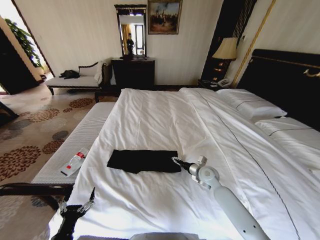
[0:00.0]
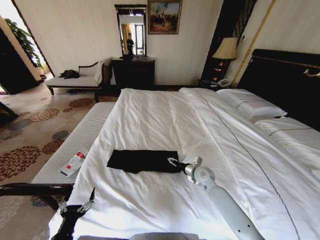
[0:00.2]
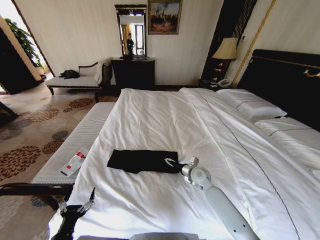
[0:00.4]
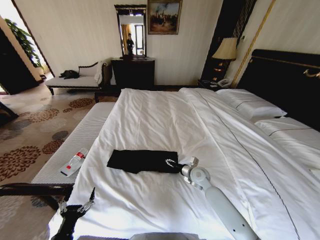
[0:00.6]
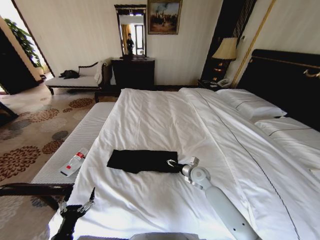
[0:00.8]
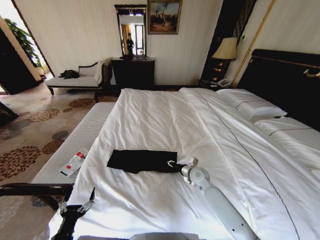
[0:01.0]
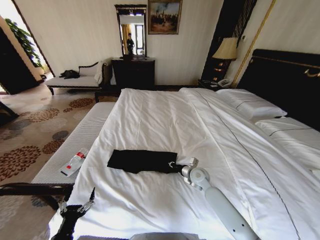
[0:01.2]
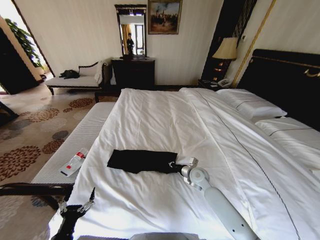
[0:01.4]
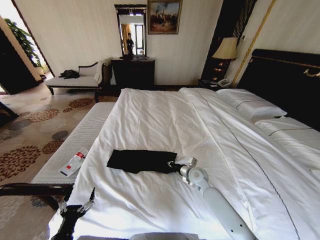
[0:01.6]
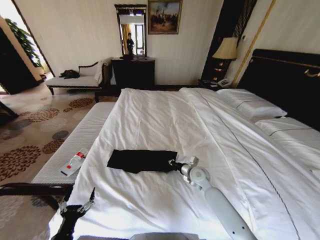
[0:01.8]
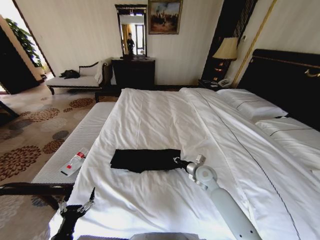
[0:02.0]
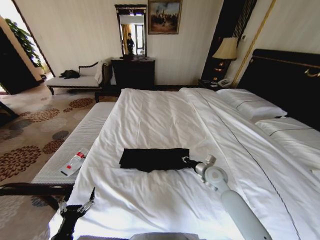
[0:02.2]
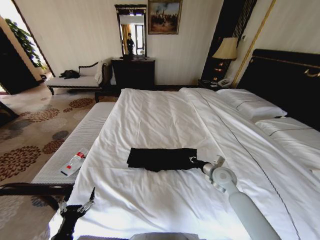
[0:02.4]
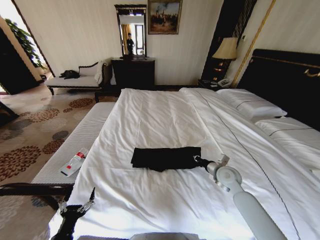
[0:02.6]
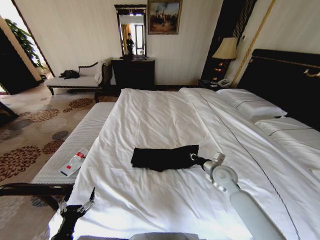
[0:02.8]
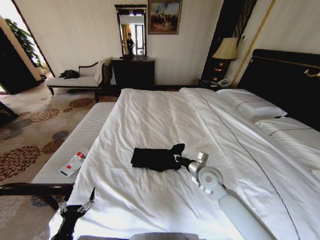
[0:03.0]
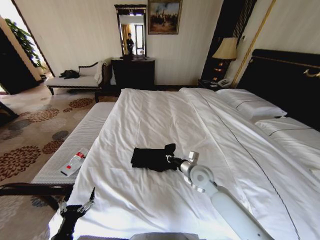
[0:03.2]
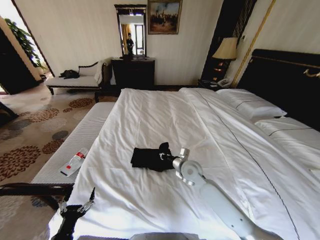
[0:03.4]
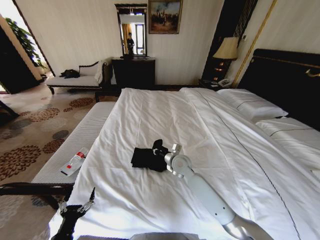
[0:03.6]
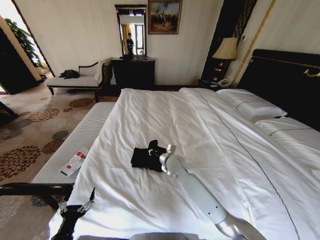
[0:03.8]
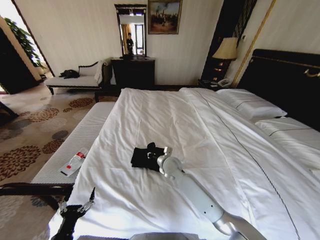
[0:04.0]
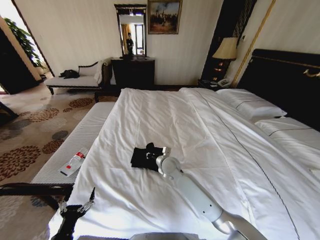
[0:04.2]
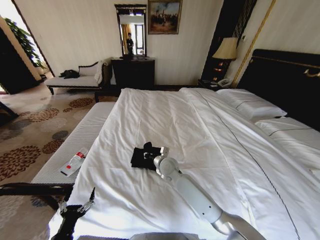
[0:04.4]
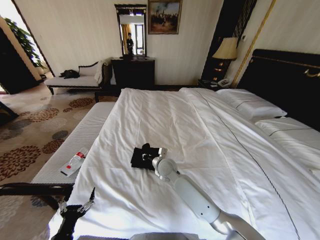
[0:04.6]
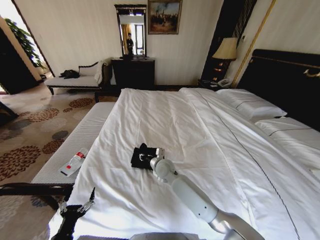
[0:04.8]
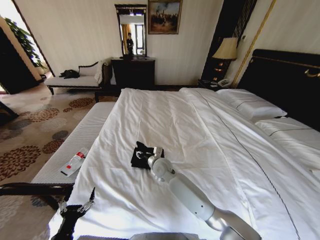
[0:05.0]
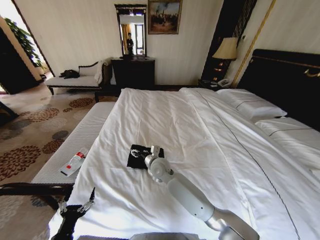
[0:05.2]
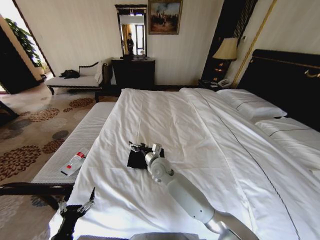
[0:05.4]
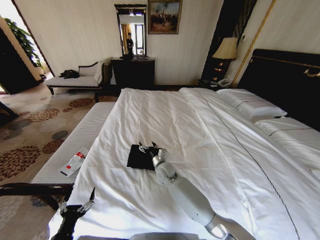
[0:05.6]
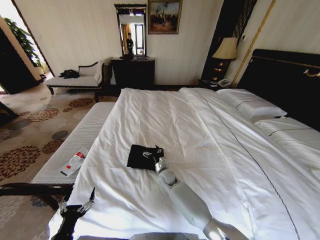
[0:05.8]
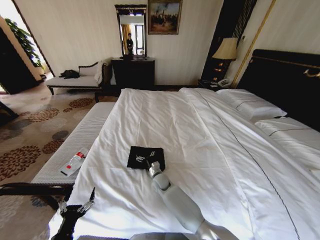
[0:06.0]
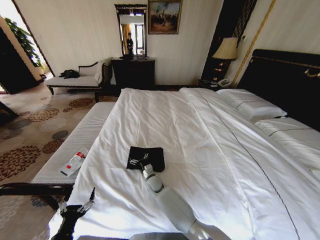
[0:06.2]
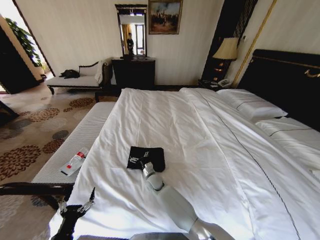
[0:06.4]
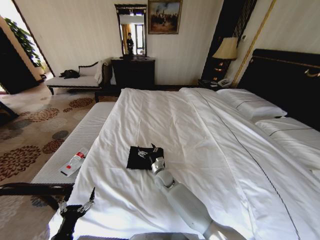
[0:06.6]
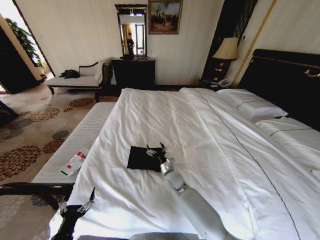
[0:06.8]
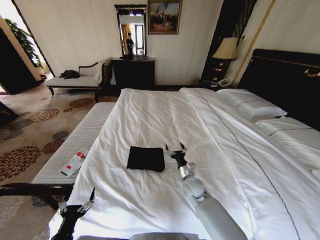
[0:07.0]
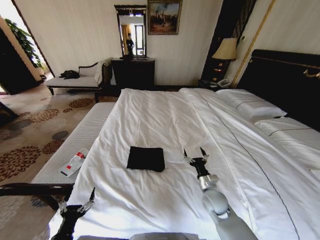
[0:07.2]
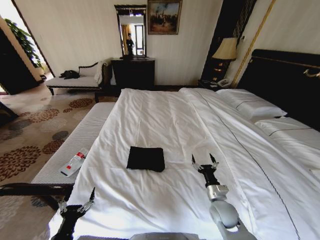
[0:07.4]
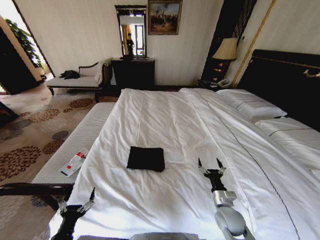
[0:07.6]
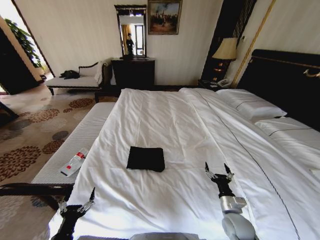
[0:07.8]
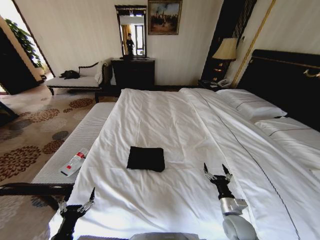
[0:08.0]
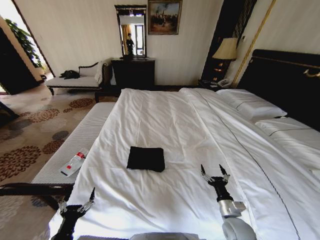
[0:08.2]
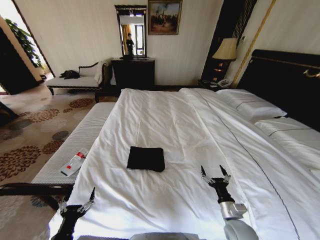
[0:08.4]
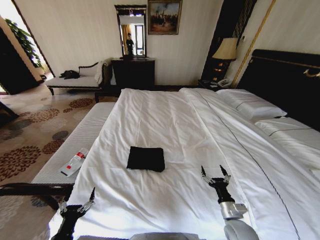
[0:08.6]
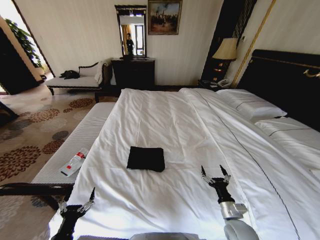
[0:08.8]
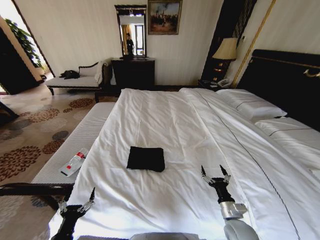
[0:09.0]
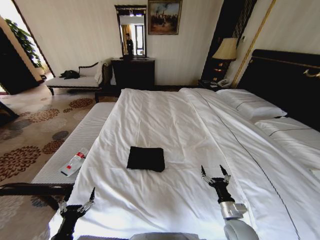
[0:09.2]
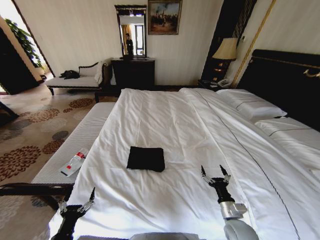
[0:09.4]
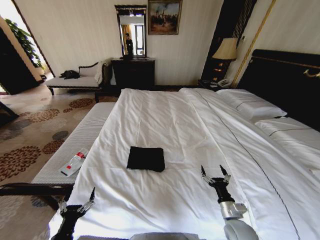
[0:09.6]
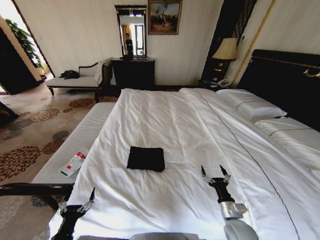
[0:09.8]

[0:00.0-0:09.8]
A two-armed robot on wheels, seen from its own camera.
Task of the whole recording: Fold the clothes on the bed.
0:00.0 to 0:01.4: The right gripper closes its fingers.
0:01.4 to 0:02.8: The right gripper travels to the right and upward by approximately 10 cm.
0:02.8 to 0:04.2: The right gripper heads to the left, covering some 20 cm.
0:04.2 to 0:05.6: The right gripper opens.
0:05.6 to 0:07.0: The right gripper shifts some 15 cm to the right and backward.
0:07.0 to 0:08.4: The right gripper heads backward and to the right, covering roughly 20 cm.
0:08.4 to 0:09.8: Neither gripper changes place.

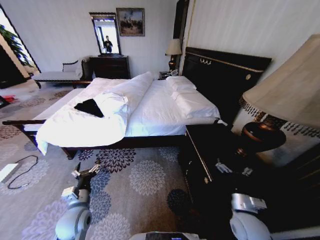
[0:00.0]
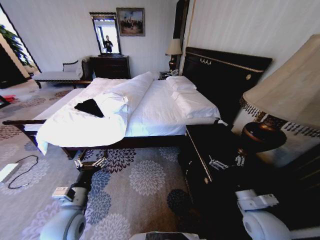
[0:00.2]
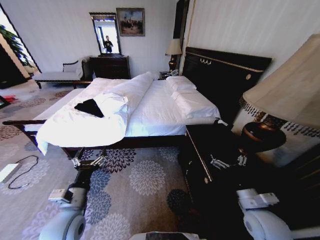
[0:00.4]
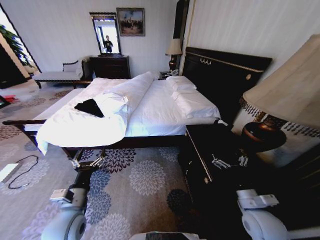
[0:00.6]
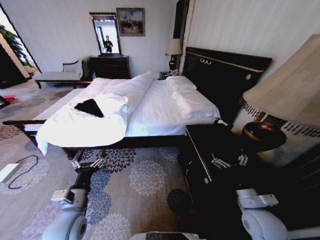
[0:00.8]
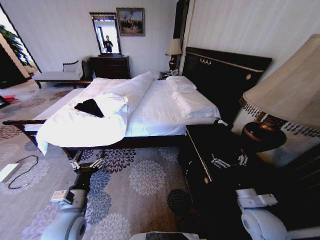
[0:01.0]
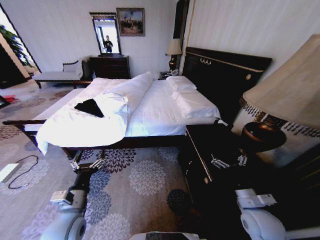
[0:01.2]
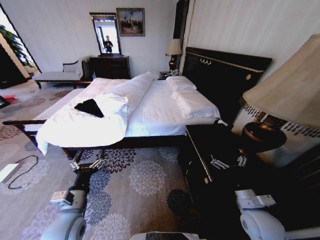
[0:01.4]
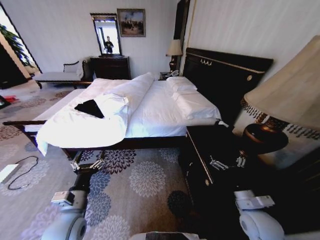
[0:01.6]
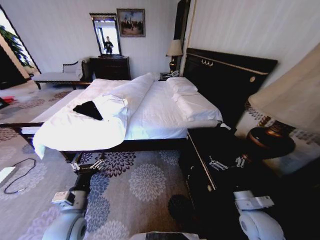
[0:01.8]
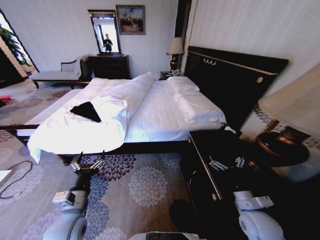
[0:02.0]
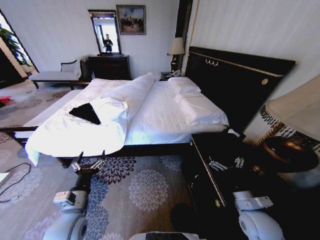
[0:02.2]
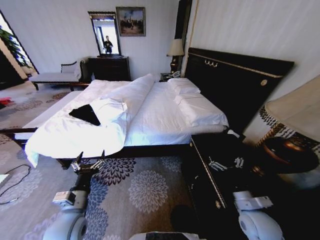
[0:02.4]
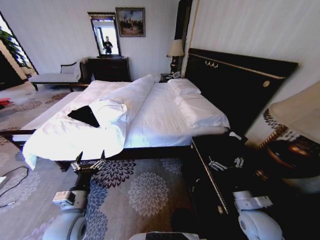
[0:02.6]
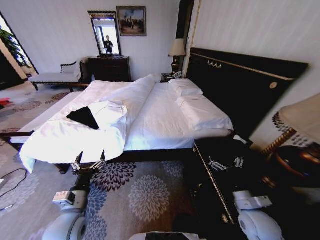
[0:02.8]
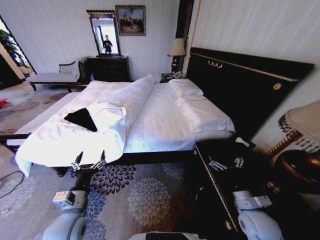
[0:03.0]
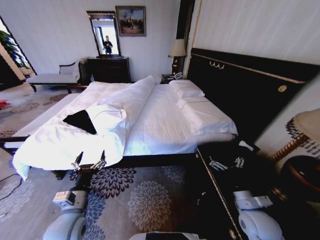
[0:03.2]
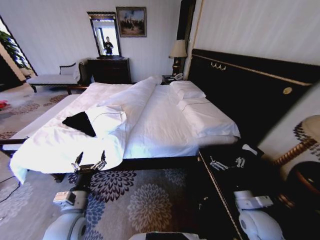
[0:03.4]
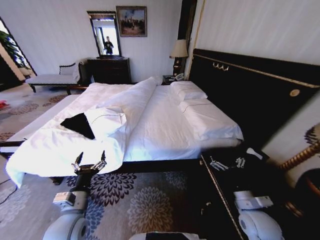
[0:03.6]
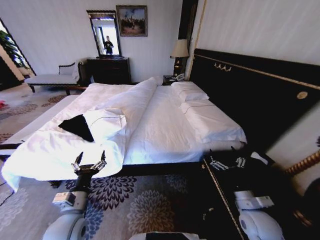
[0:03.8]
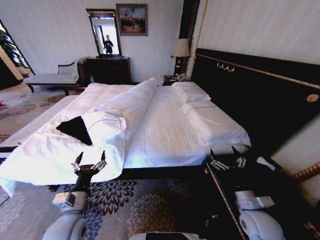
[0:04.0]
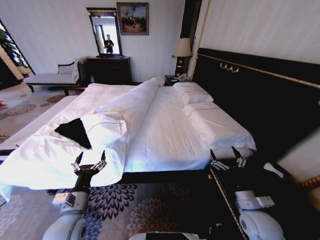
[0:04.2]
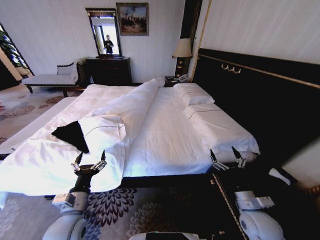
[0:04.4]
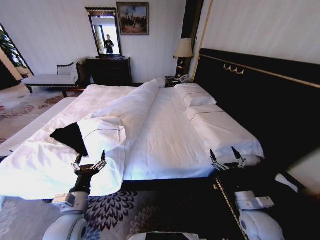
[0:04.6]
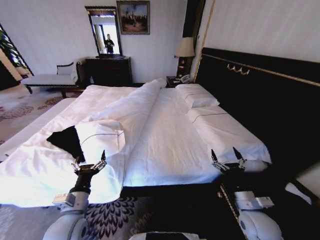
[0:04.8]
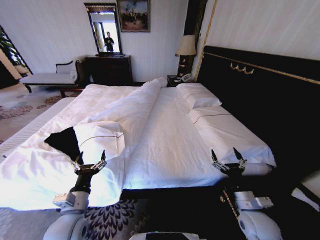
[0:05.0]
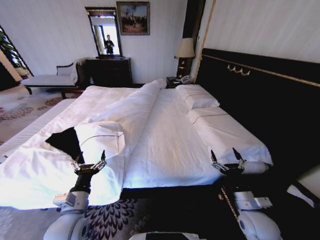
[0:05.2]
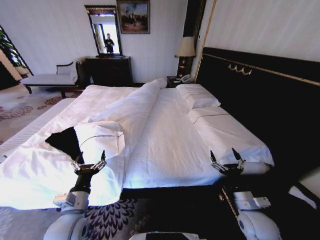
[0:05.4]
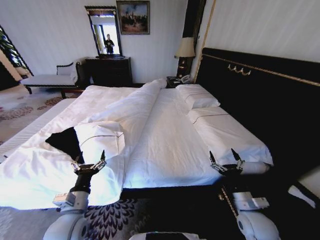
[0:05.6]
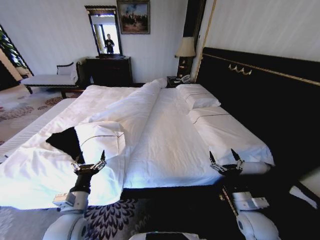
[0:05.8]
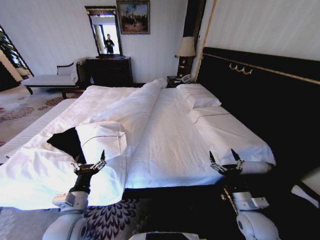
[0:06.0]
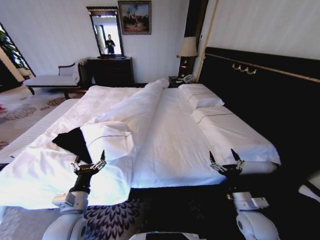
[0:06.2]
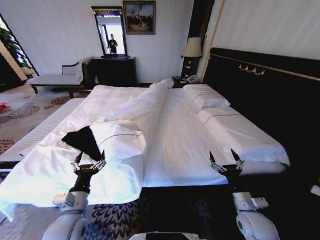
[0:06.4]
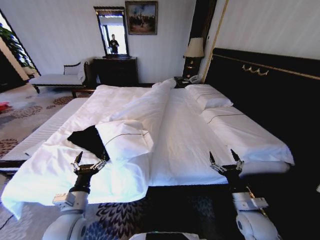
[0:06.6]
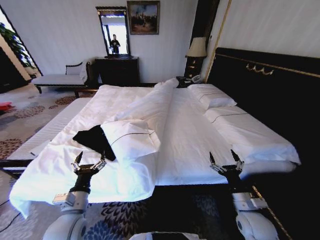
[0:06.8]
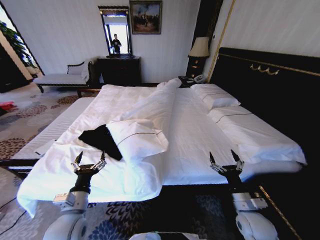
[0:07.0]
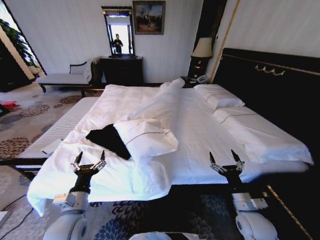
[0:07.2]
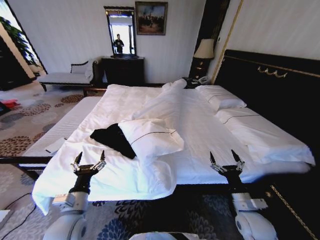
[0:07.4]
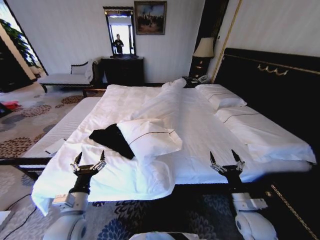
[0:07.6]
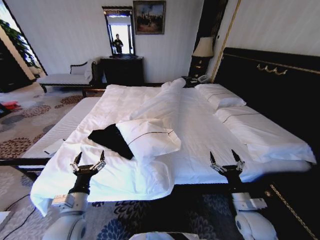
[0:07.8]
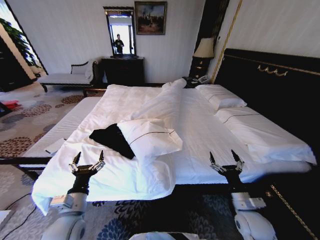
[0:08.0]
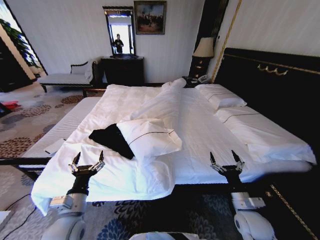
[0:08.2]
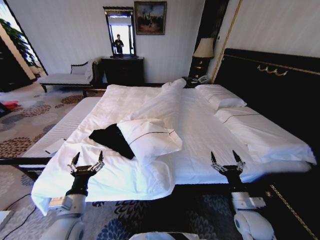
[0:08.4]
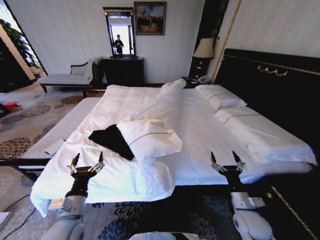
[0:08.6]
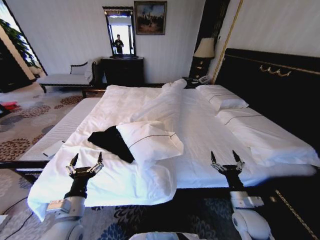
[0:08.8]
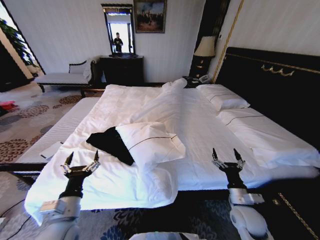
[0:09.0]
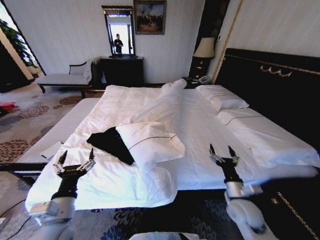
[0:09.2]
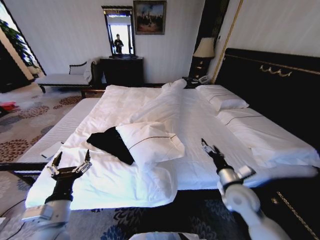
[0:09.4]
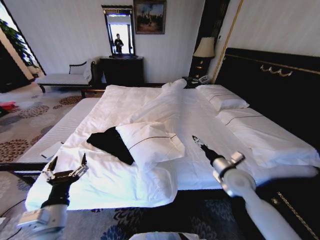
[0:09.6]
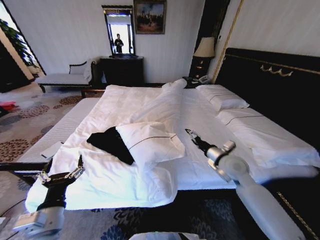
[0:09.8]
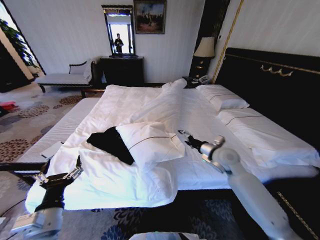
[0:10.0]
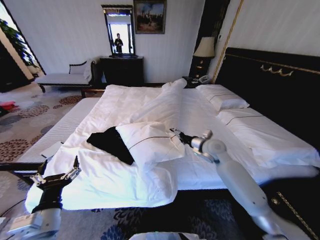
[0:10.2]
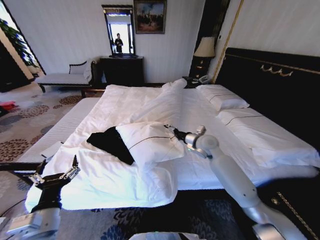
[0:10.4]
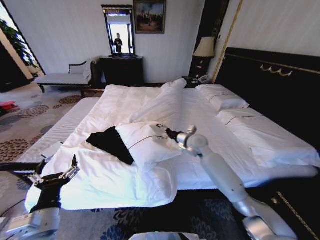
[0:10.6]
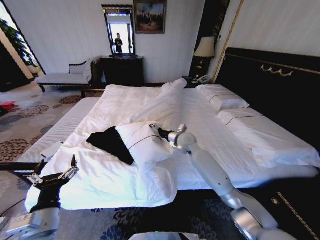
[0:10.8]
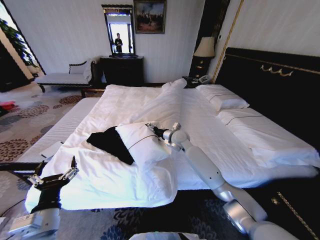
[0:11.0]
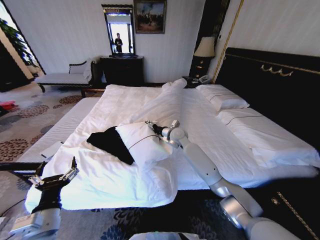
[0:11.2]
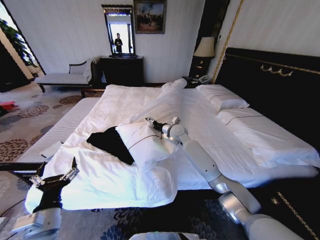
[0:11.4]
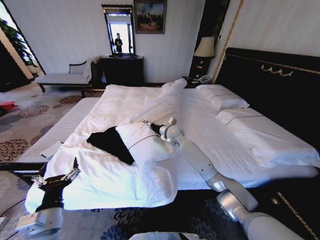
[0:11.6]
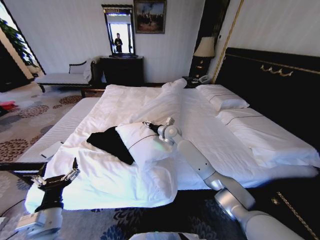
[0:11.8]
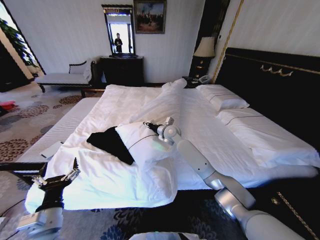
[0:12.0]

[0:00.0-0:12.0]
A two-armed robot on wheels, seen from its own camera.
Task of the whole recording: Fold the clothes on the bed.
0:07.6 to 0:09.0: The grippers move only a little.
0:09.0 to 0:10.4: The right gripper heads forward, upward and to the left, covering some 30 cm.
0:10.4 to 0:12.0: The right gripper goes approximately 15 cm to the left and forward, and closes.

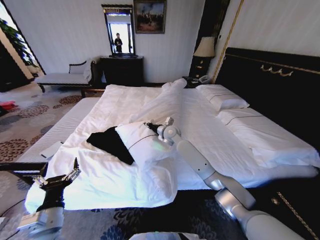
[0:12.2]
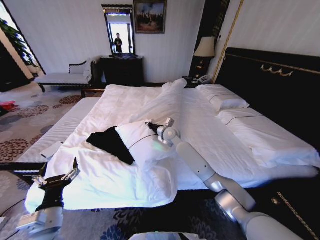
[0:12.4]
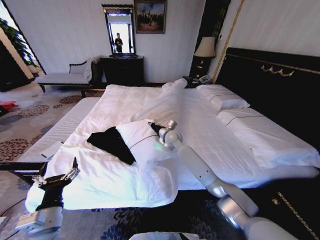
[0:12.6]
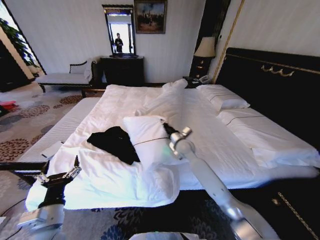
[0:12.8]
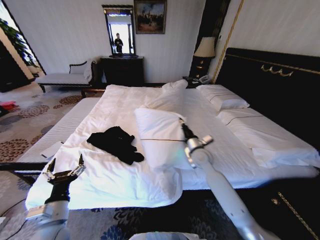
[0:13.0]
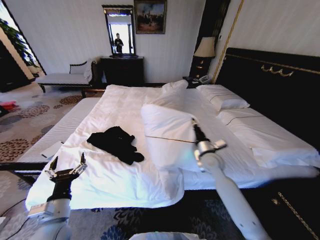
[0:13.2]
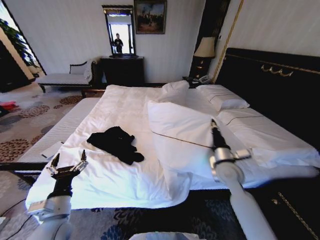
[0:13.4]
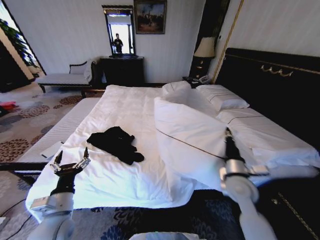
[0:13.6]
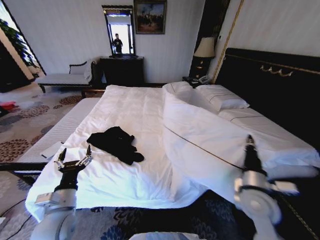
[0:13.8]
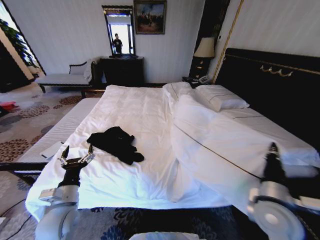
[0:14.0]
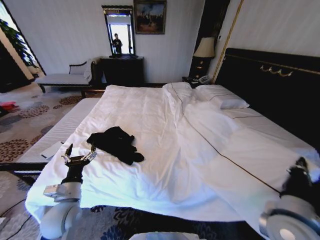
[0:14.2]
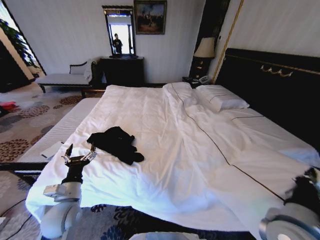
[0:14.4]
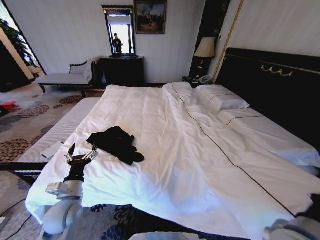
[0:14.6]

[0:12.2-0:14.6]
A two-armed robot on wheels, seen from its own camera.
Task of the whole recording: Fold the clothes on the bed.
0:12.2 to 0:13.4: The right gripper goes some 30 cm backward and to the right, and closes its fingers.
0:13.4 to 0:14.6: The right gripper goes some 20 cm backward. Meanwhile the left gripper goes some 5 cm forward.
